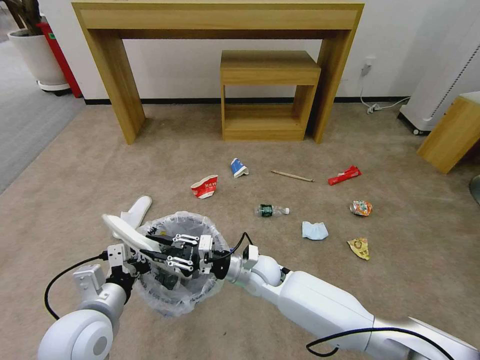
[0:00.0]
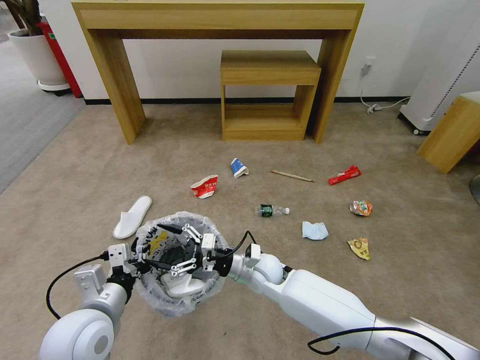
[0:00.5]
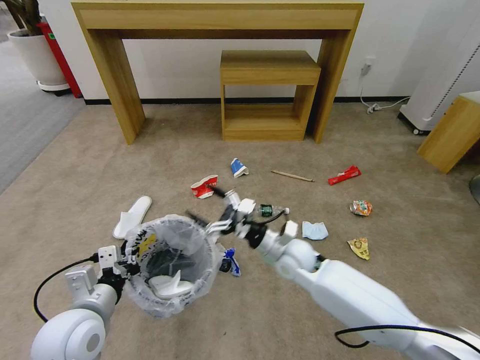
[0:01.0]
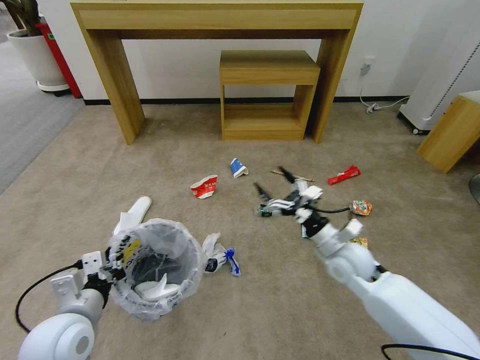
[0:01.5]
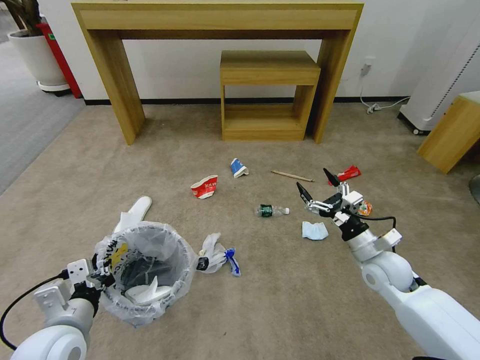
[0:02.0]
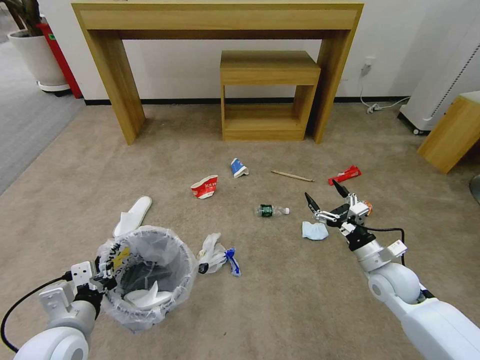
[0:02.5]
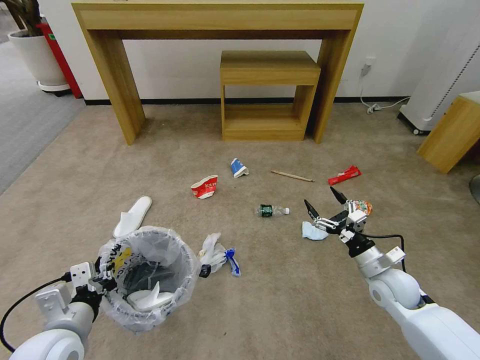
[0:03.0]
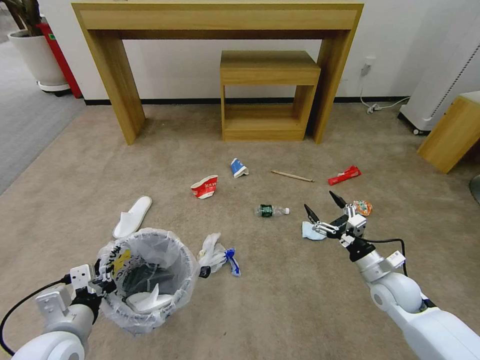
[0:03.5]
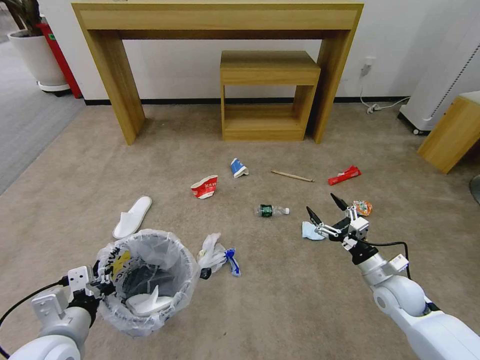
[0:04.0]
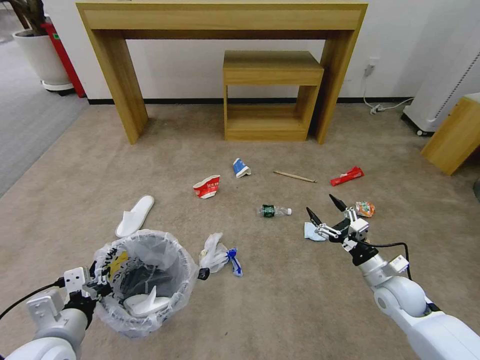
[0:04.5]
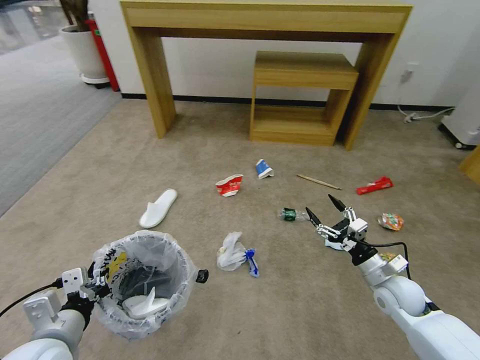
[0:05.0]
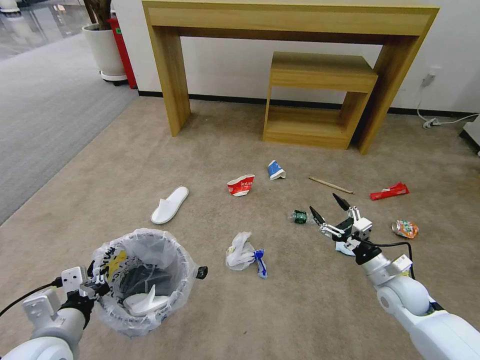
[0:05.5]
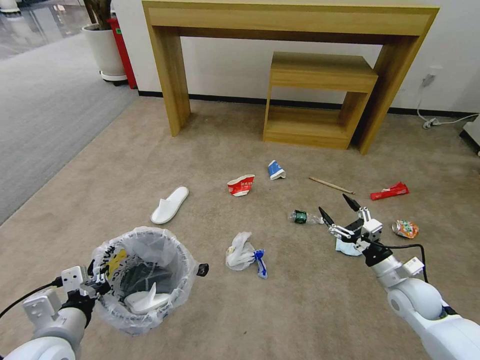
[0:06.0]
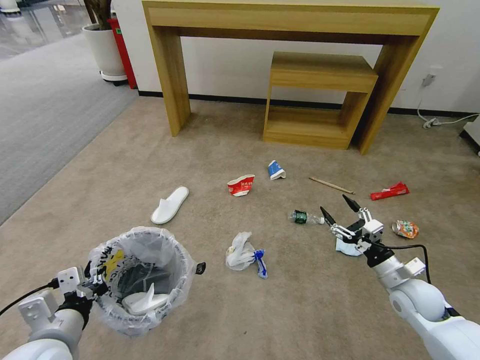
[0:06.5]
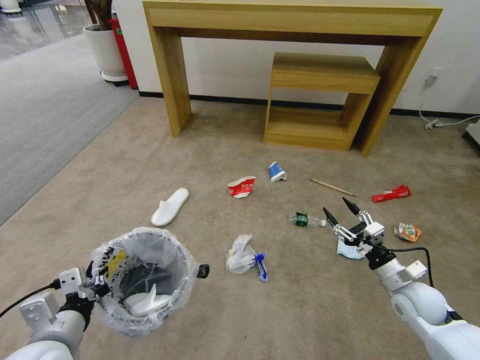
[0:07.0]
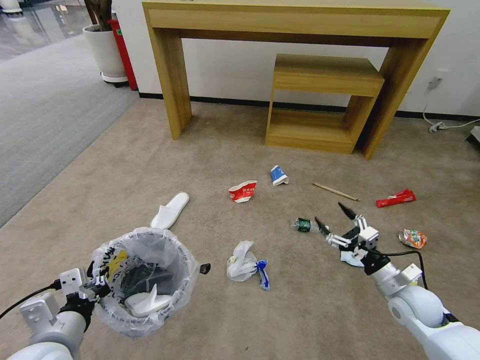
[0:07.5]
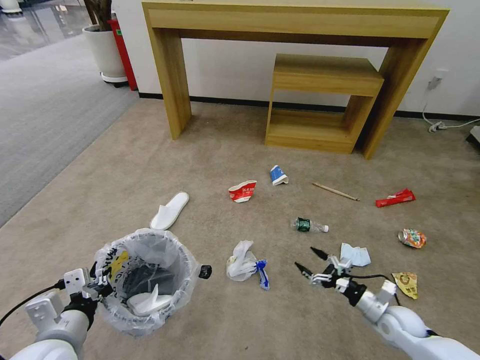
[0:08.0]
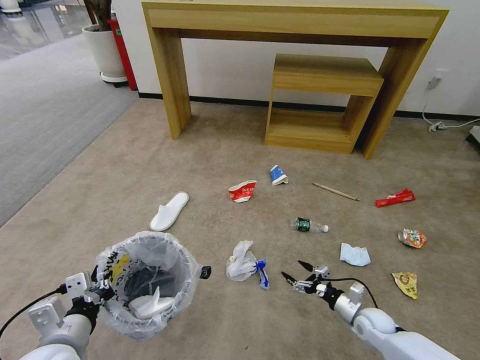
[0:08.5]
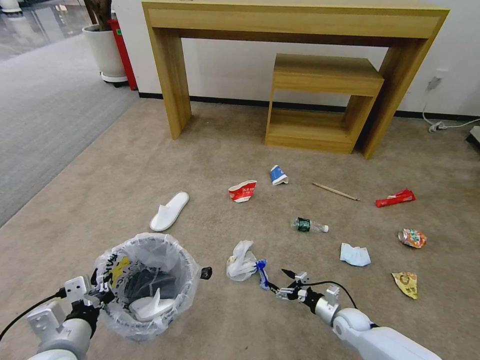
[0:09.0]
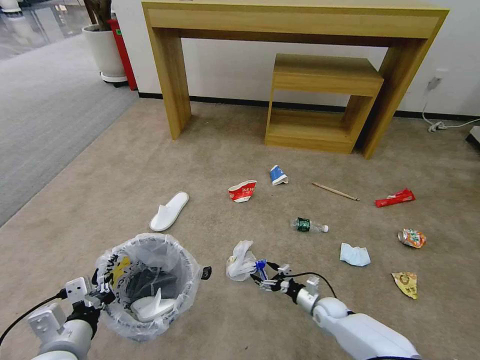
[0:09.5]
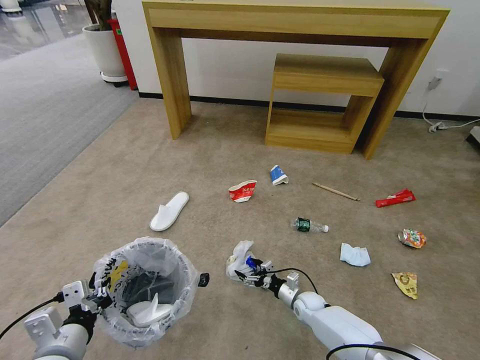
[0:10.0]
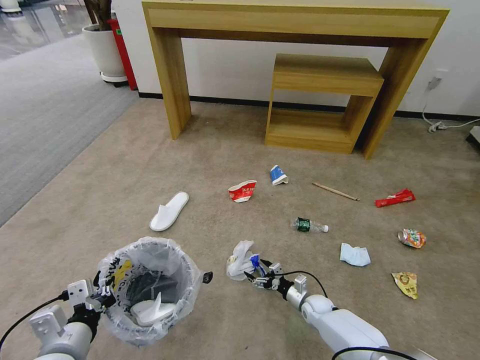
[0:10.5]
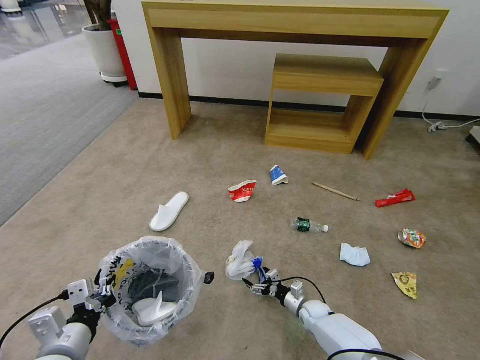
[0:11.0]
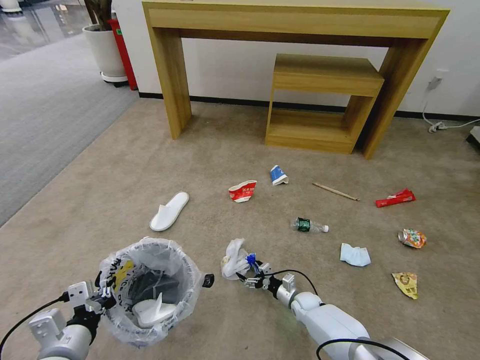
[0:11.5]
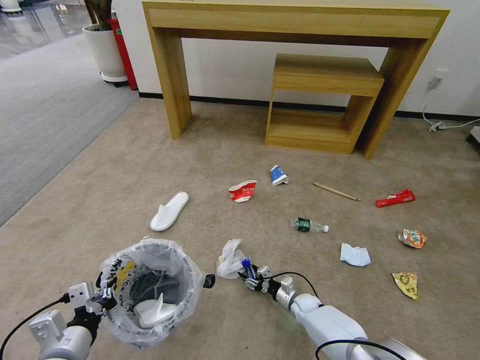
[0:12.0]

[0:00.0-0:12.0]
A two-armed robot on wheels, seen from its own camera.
Task of the whole recording: Pick up the trash bin and place the garbage on the floor into it.
0:00.0 to 0:02.0: The right gripper goes roughly 30 cm to the right, and opens its fingers, while the left gripper ends up roughly 5 cm from where it was.
0:02.0 to 0:04.0: The right gripper travels downward by roughly 5 cm.
0:06.0 to 0:08.0: The right gripper travels downward by about 10 cm.
0:08.0 to 0:10.0: The right gripper moves to the left, downward and forward, roughly 25 cm.
0:10.0 to 0:12.0: The right gripper closes its fingers.

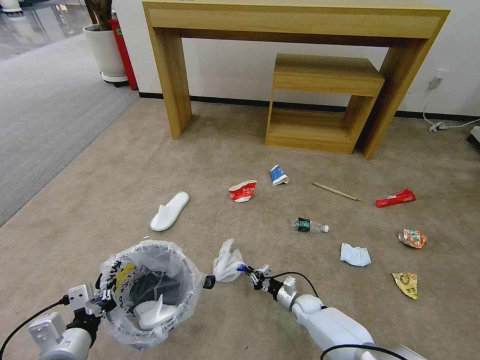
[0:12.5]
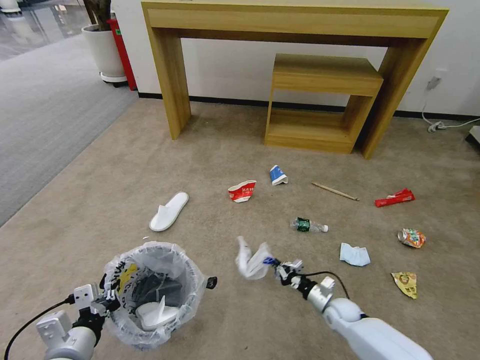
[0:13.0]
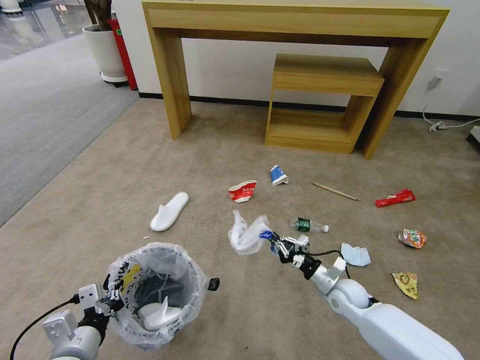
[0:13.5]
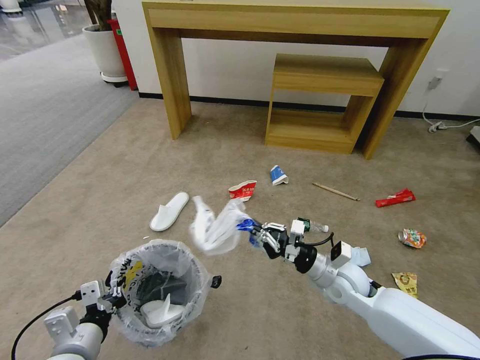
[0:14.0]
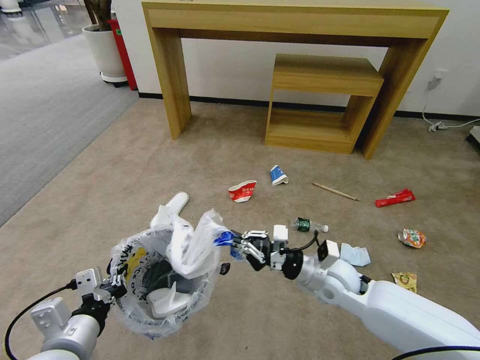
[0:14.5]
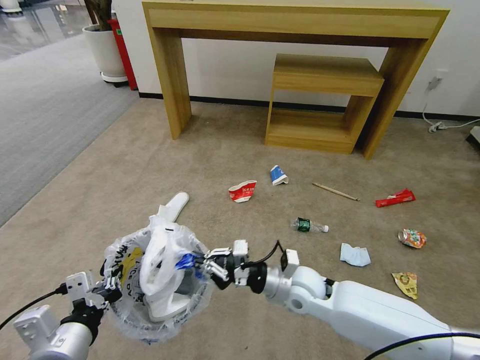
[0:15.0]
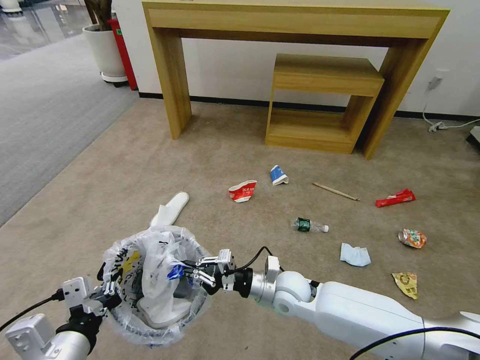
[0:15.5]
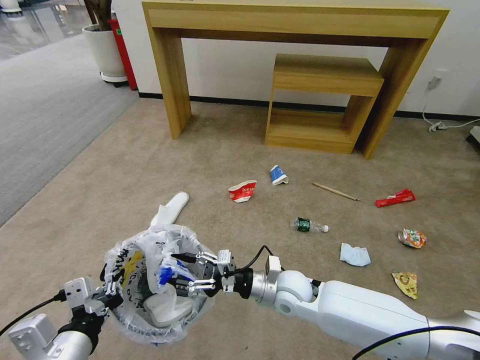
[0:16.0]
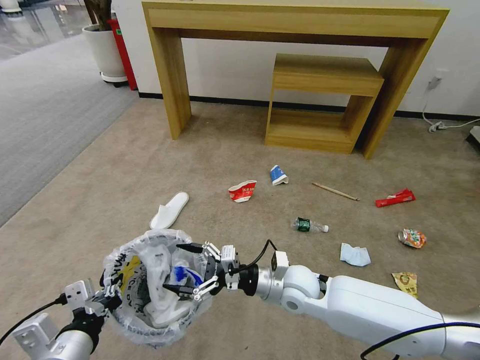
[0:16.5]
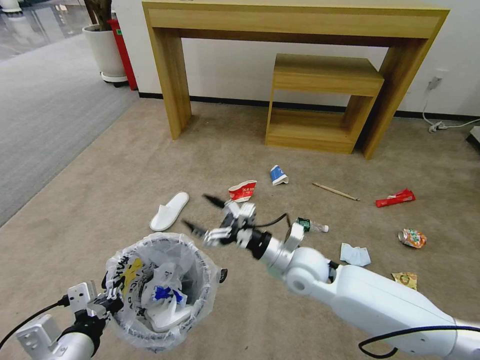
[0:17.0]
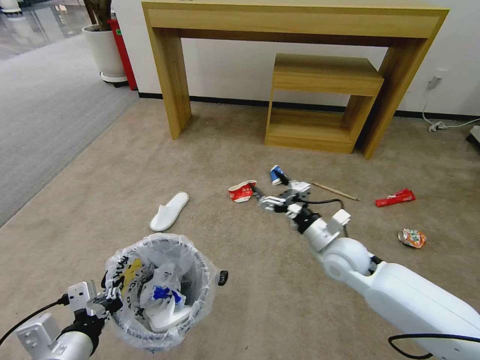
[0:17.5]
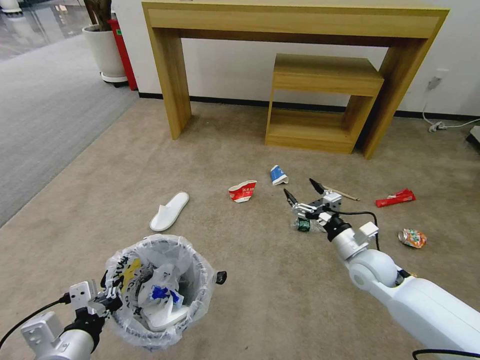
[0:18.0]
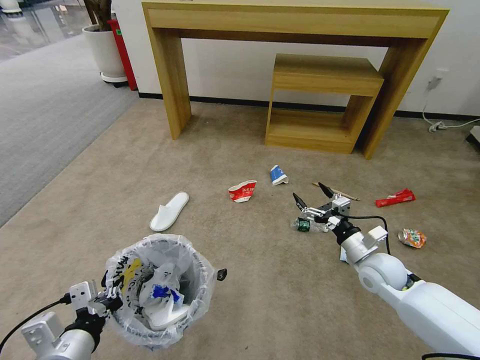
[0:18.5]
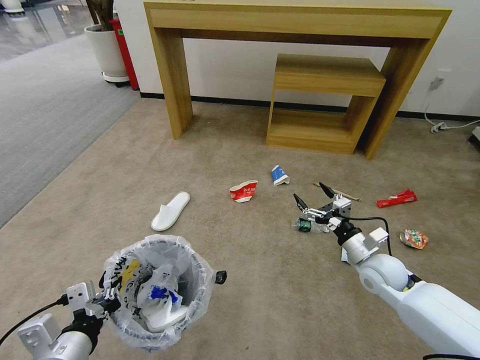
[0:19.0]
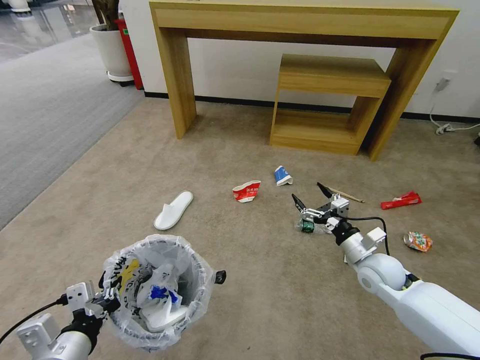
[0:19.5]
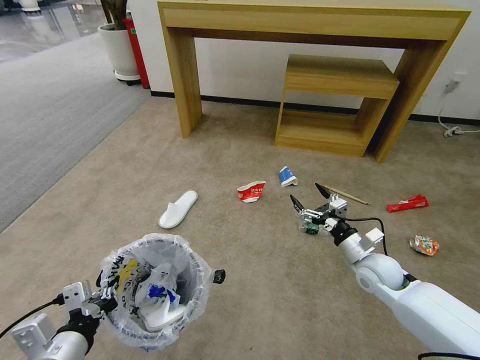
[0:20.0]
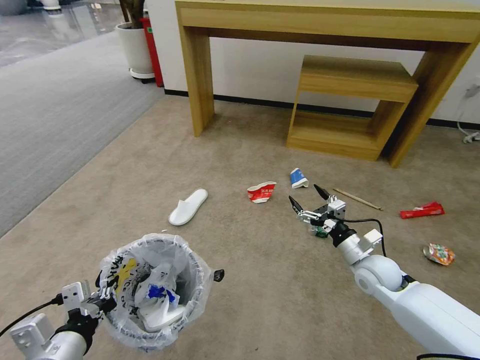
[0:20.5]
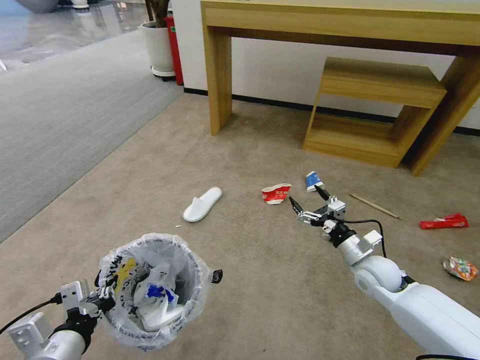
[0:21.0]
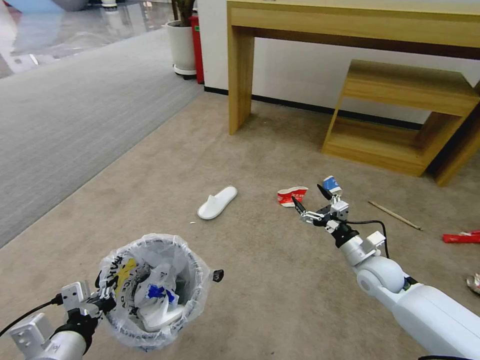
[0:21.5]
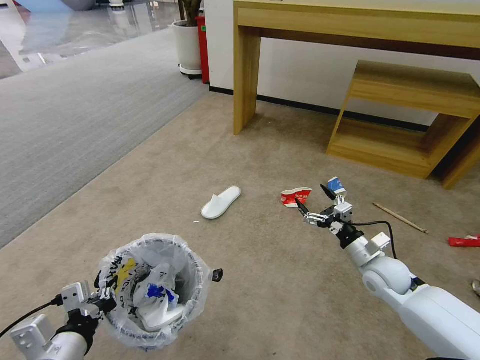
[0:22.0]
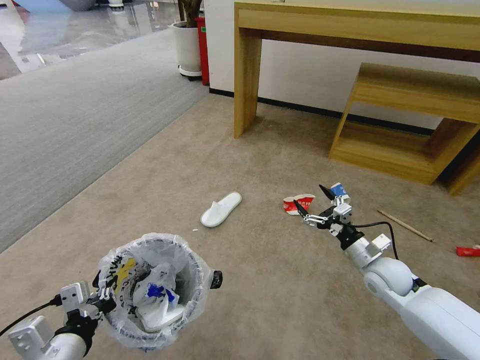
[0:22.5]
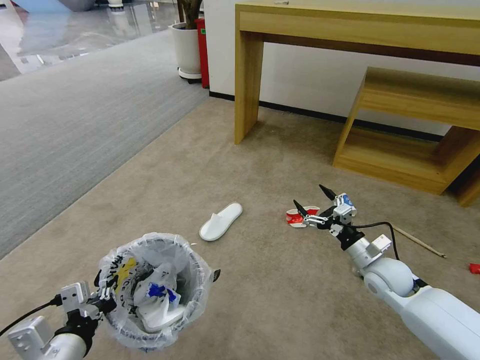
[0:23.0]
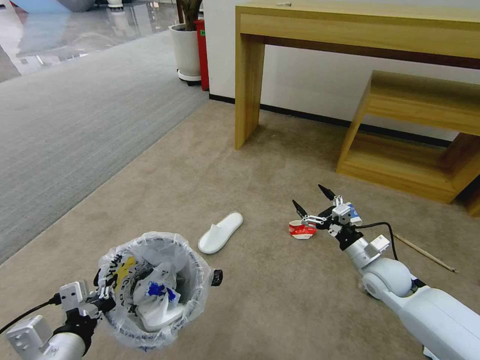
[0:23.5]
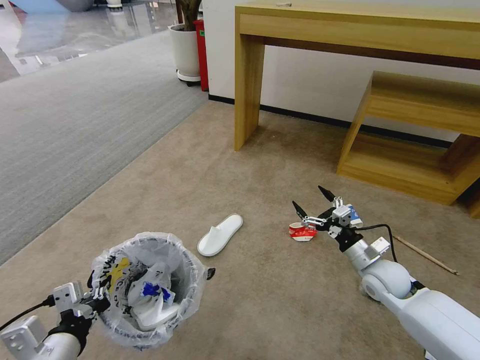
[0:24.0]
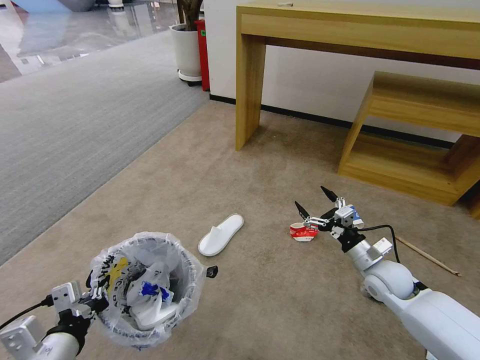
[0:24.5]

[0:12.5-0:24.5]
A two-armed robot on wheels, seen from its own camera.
Task of the whole recording: Pick up the trash bin and place the garbage on the floor into it.
0:12.5 to 0:14.5: The right gripper shifts some 30 cm upward; the left gripper goes some 5 cm upward.
0:14.5 to 0:16.5: The right gripper is displaced to the left by roughly 10 cm, and opens its fingers.
0:16.5 to 0:18.5: The right gripper heads to the right, covering some 20 cm.

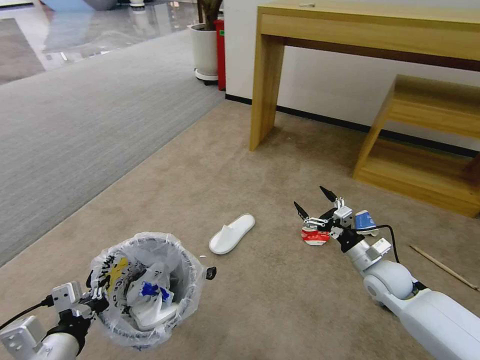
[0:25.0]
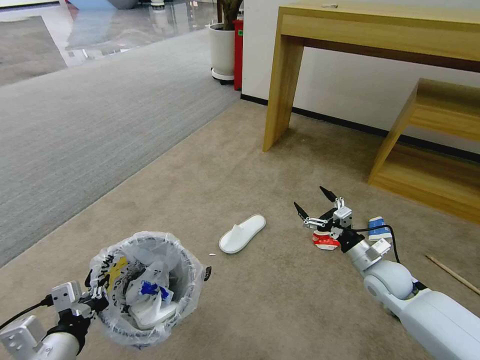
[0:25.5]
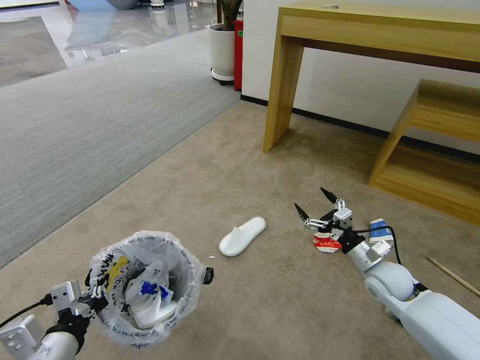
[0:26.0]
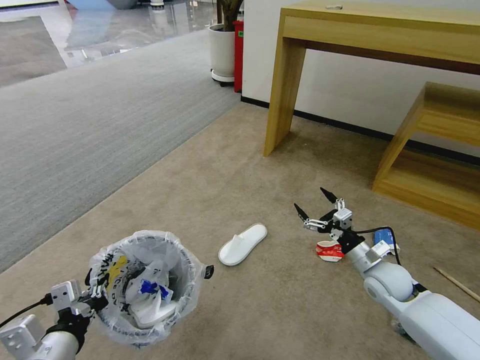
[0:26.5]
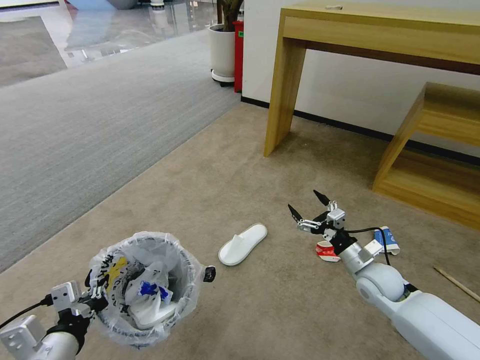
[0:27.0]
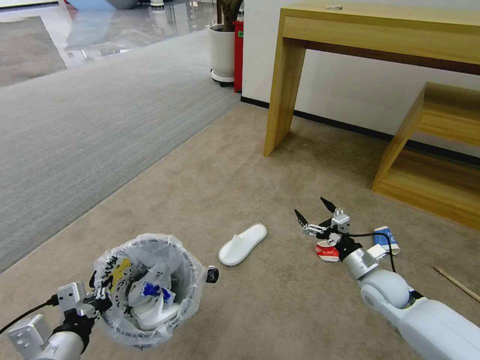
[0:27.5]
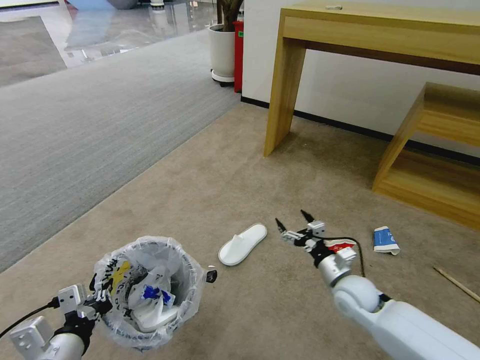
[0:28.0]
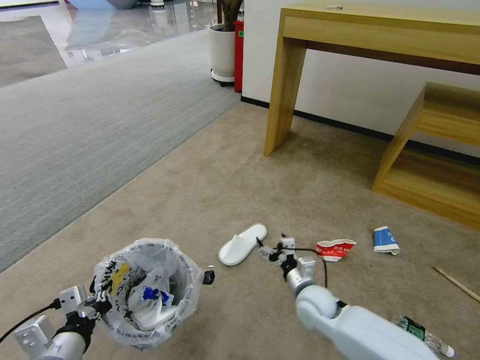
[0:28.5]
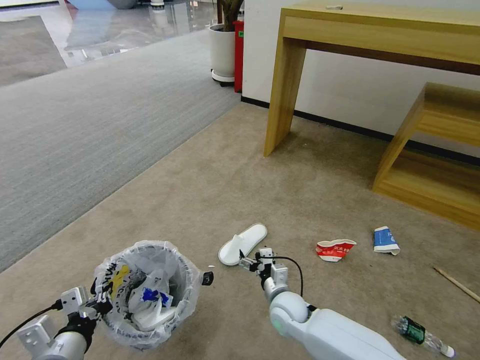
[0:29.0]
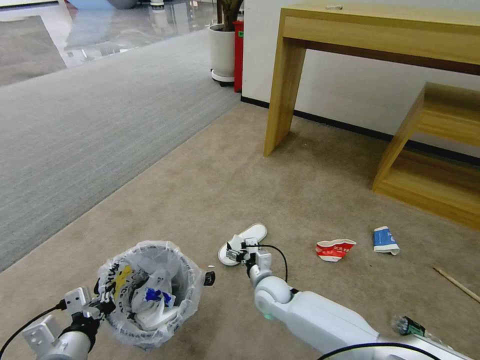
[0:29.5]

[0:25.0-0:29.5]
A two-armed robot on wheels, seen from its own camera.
Task of the whole recording: Pick up the trash bin and place the garbage on the floor into it.
0:25.0 to 0:27.0: The grippers stay close to where they were, moving slightly.
0:27.0 to 0:29.5: The right gripper heads to the left, covering roughly 25 cm. Meanwhile the left gripper moves approximately 5 cm.
